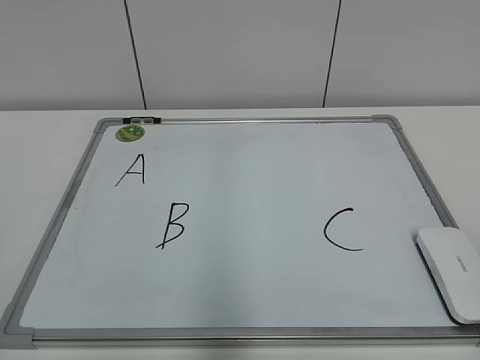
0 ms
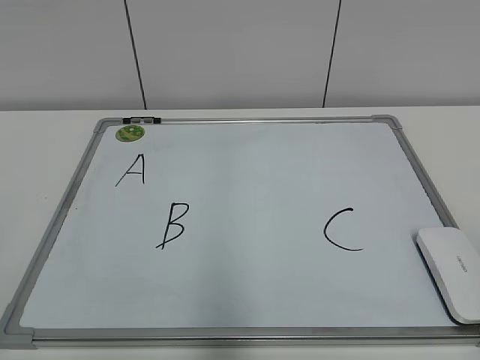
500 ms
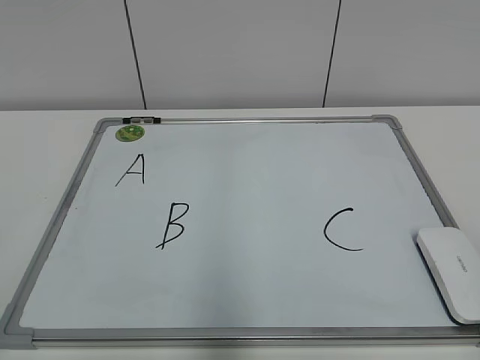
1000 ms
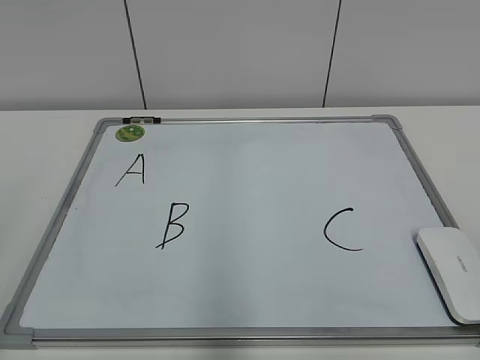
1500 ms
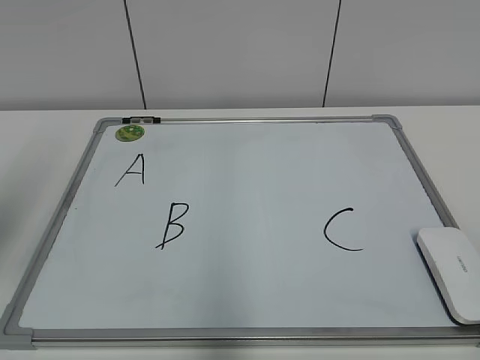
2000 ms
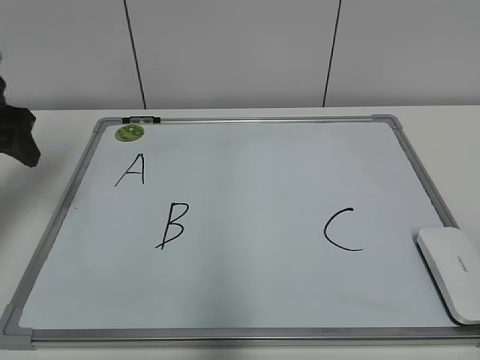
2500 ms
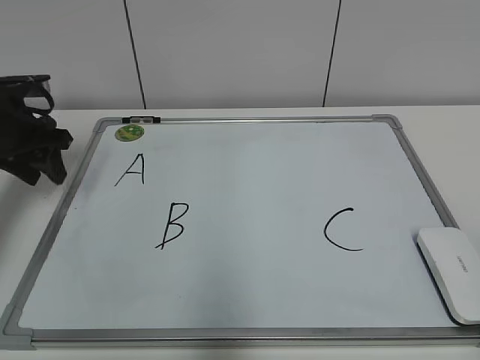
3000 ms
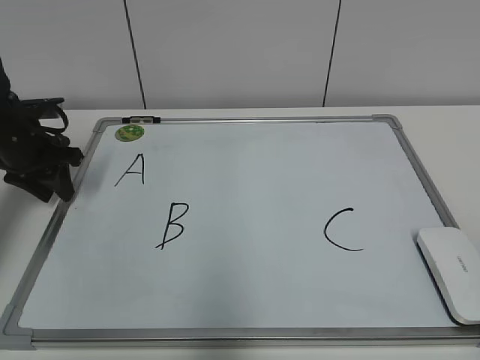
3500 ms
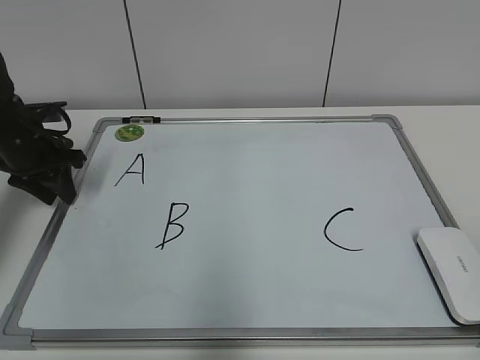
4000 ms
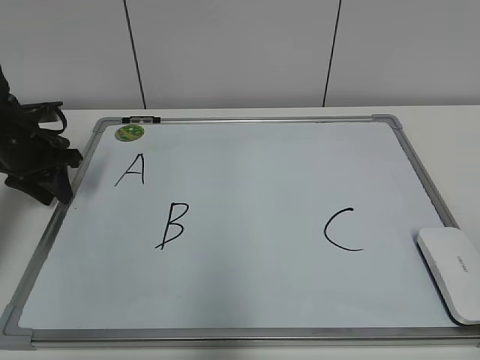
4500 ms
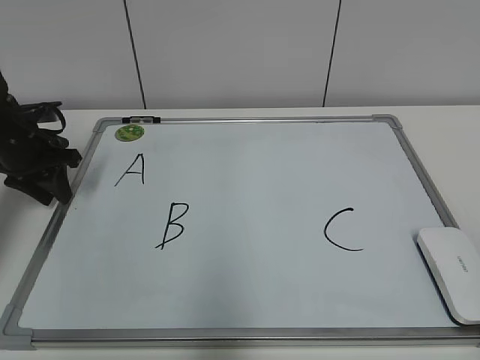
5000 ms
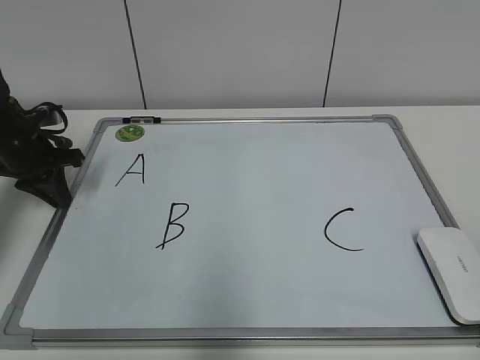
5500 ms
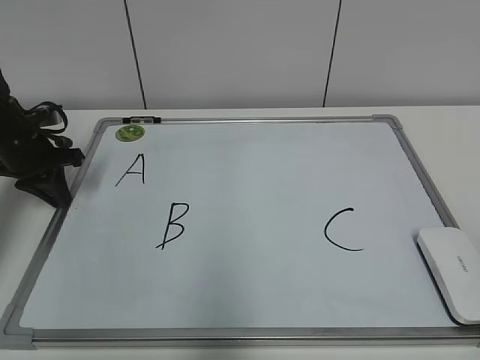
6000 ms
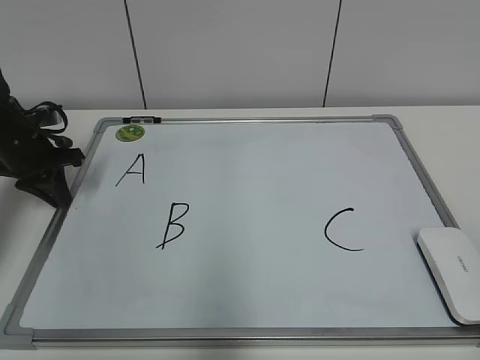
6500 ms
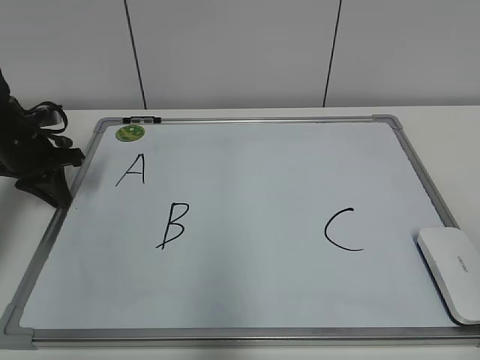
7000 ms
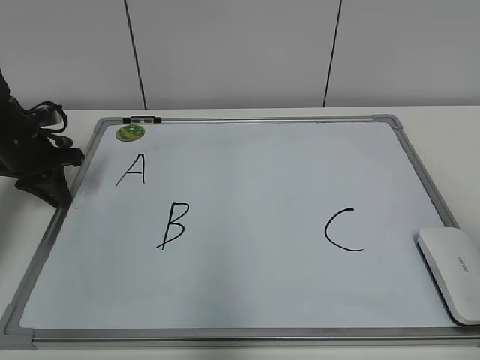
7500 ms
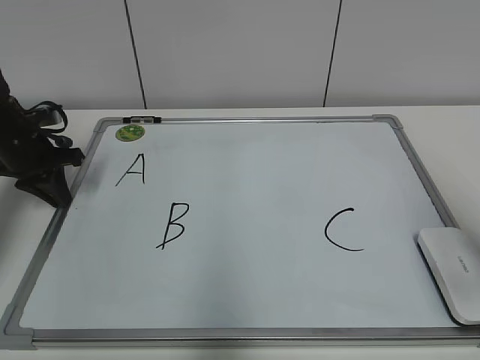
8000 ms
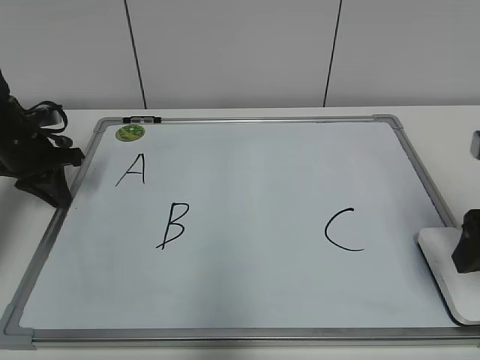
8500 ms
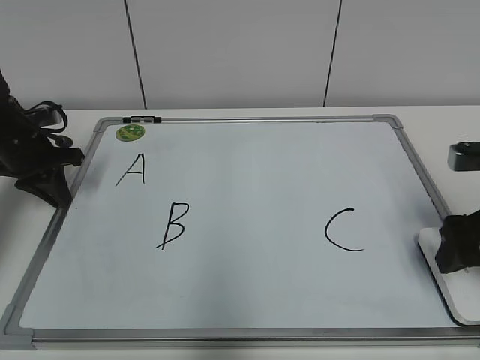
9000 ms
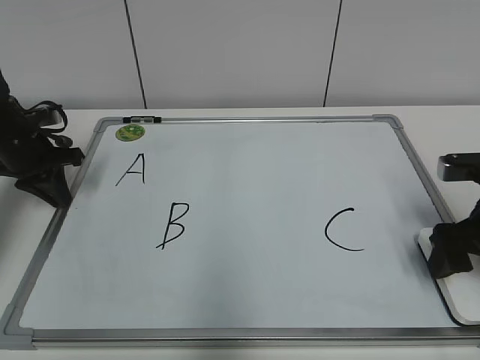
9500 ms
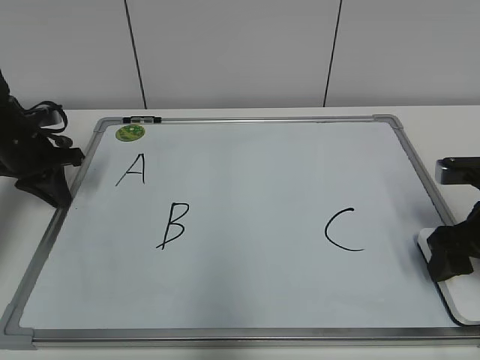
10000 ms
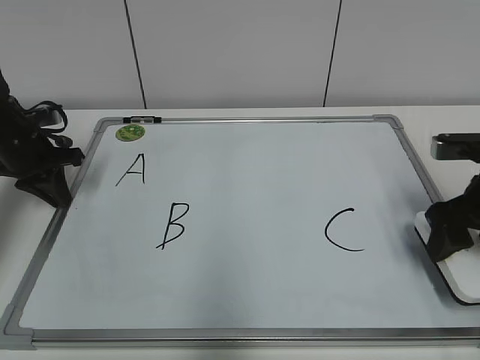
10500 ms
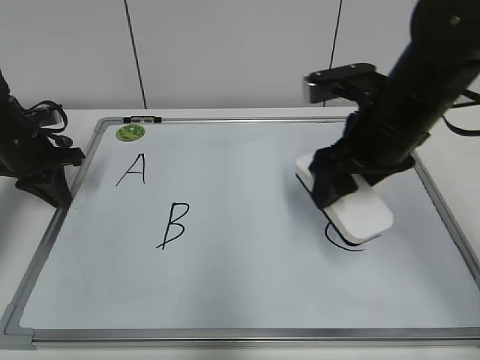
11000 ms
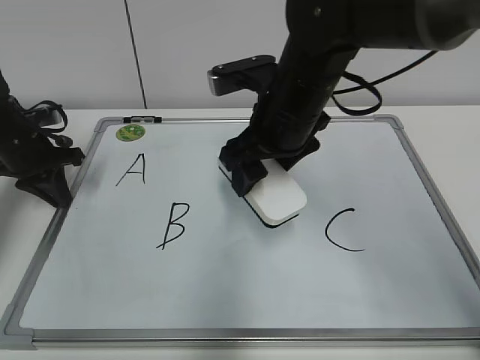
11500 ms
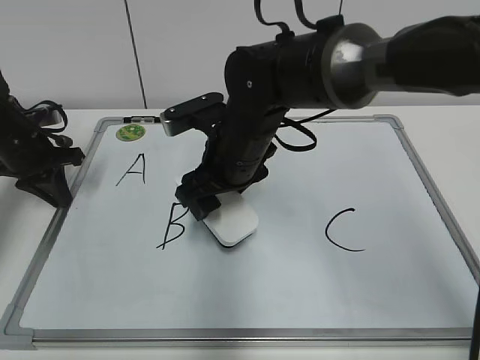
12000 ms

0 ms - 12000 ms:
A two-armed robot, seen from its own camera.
Task of the whole recording: pick up the eraser on the blackboard and erase the letter "B".
Step, 0 ms - 5000 ms: Hold the drawing board steady with your left hand.
Step, 5500 ms - 9500 ms: Grab the eraser with your right hand.
2000 ms - 4000 ms: The left gripper moves forward and downward, roughly 30 cm, and closes its fingers.
4000 ms - 6000 ms: The left gripper closes its fingers.
6000 ms - 8000 ms: The right gripper heads forward, covering roughly 15 cm.
8000 ms - 10000 ms: The right gripper is displaced downward and forward by some 15 cm, and closes up.
10000 ms - 12000 ms: The right gripper goes some 25 cm to the left.

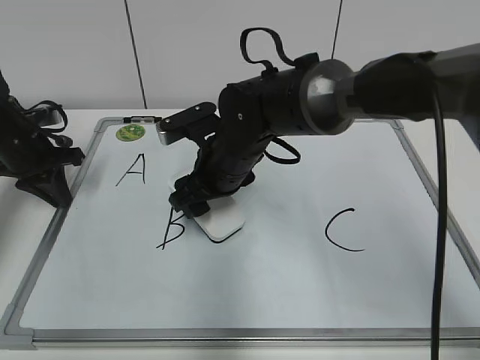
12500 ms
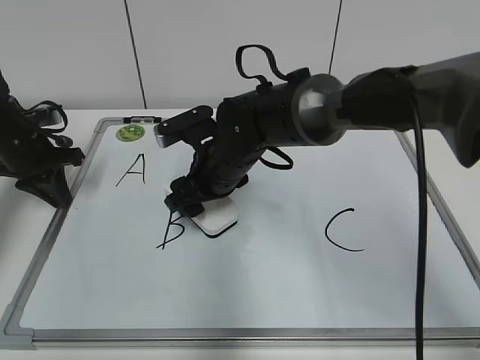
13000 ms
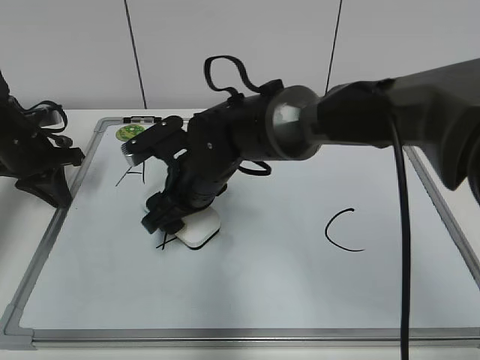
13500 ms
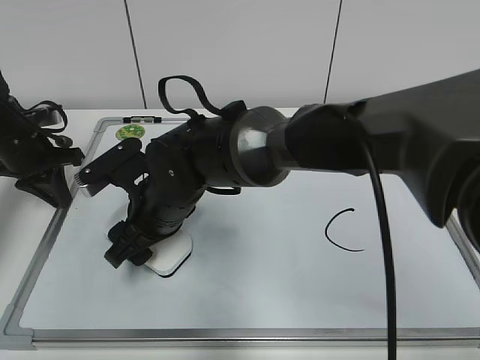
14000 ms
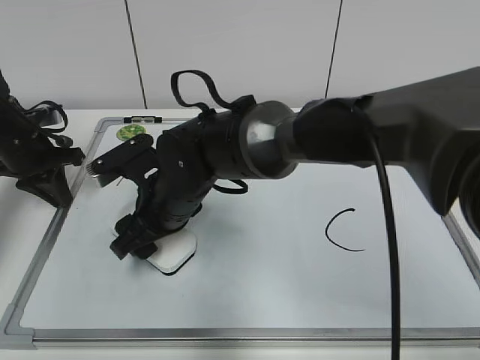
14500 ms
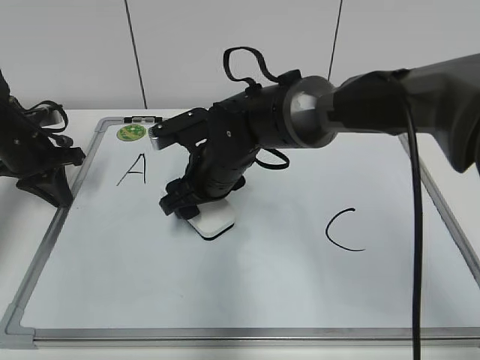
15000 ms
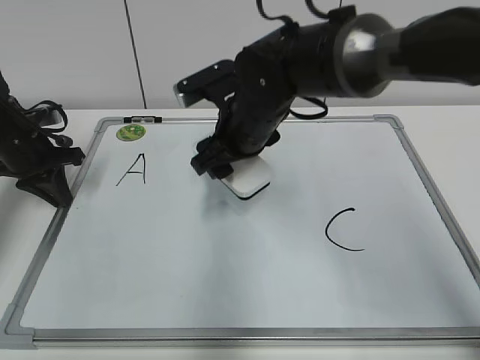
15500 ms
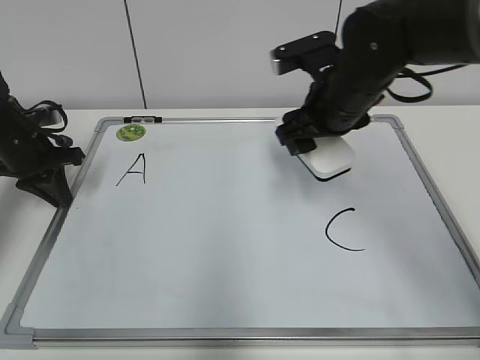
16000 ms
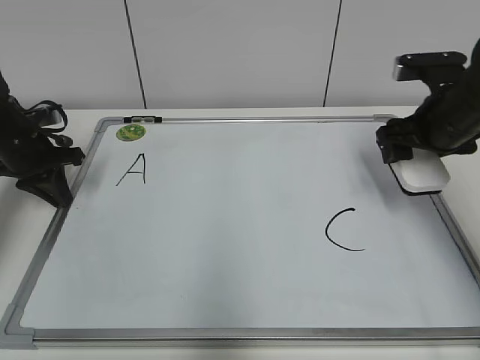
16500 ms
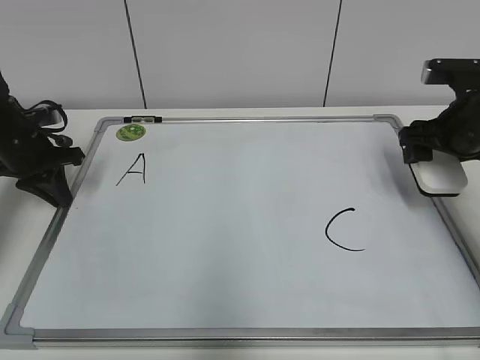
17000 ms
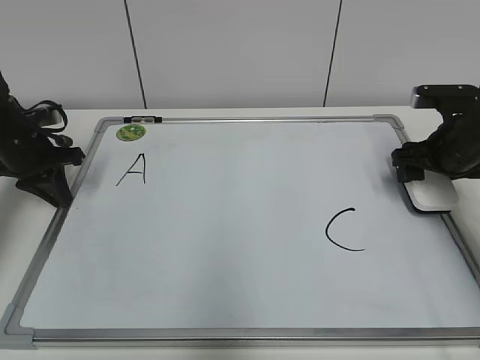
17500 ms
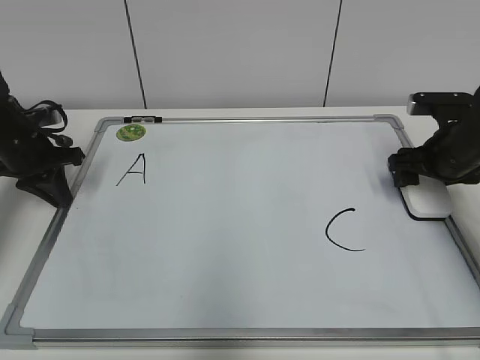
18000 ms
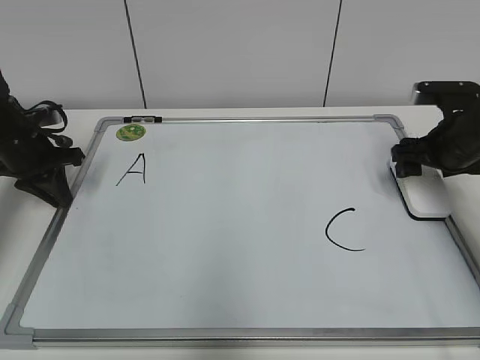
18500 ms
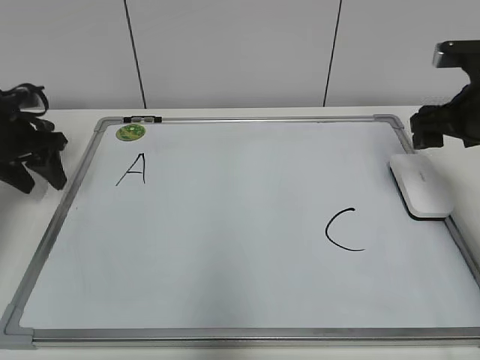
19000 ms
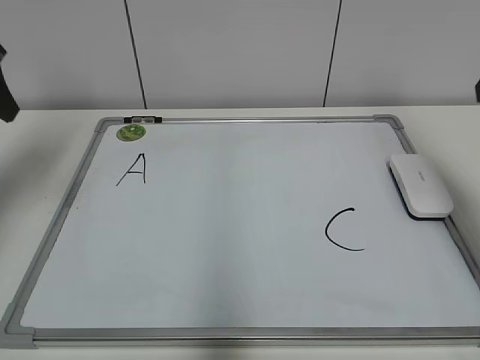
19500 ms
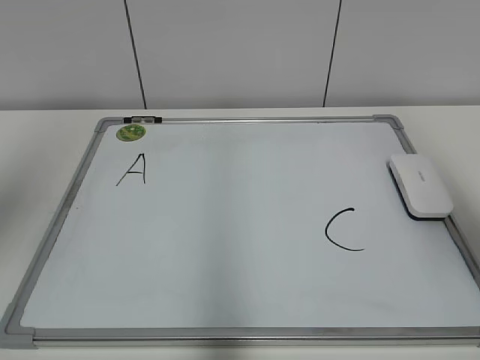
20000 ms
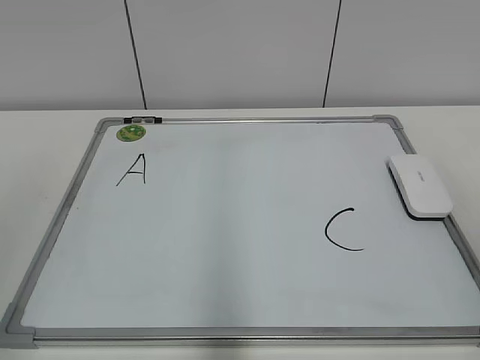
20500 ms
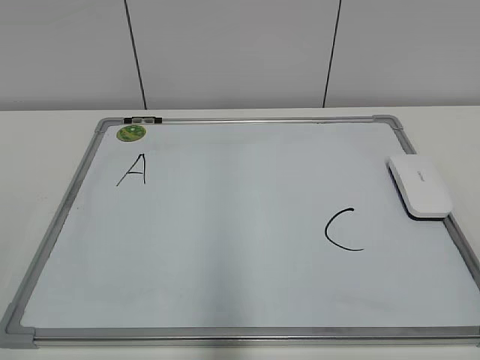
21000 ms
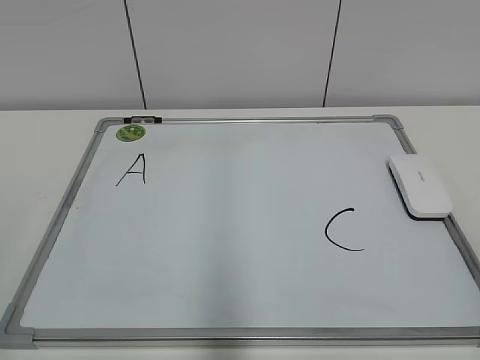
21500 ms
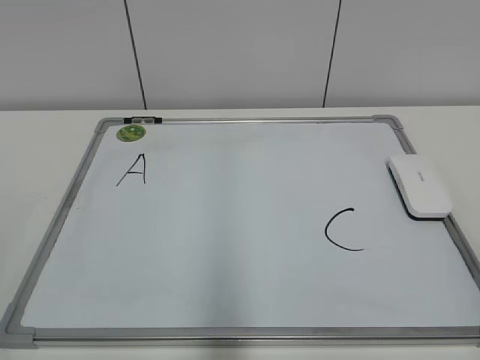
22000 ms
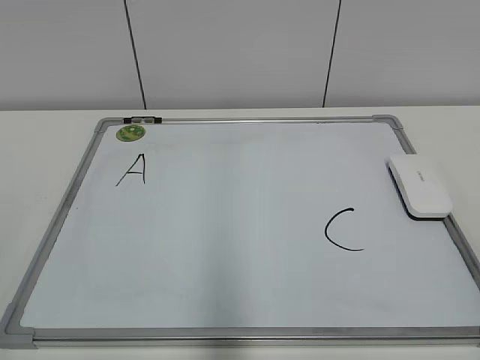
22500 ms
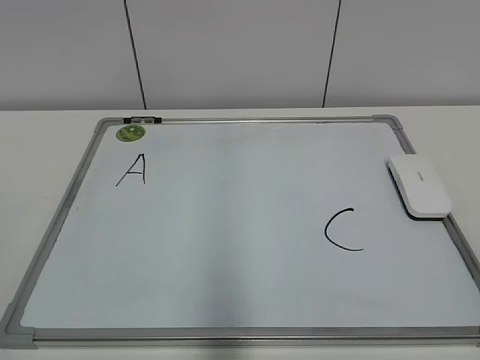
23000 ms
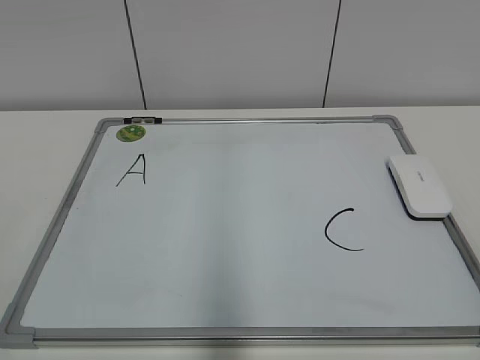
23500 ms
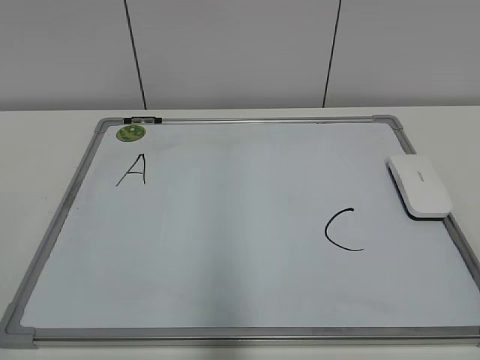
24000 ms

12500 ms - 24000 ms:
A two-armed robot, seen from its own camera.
Task of the whole recording: pick up the eraser on the blackboard and erase the letter "B".
Step, 12500 ms - 15000 ms: Erase the letter B with your right hand.
Step, 15500 ms - 18000 ms: Put down the eraser with your right hand.
12500 ms - 14500 ms: The right gripper moves to the left, some 5 cm.
14500 ms - 16500 ms: The right gripper shifts roughly 30 cm to the right.
16500 ms - 18500 ms: The right gripper travels downward and to the right by roughly 10 cm, and opens its fingers.
18500 ms - 20000 ms: The two grippers go about 30 cm upward and backward. The left gripper opens up.
20000 ms - 22000 ms: The grippers both shift backward and downward by about 25 cm.
